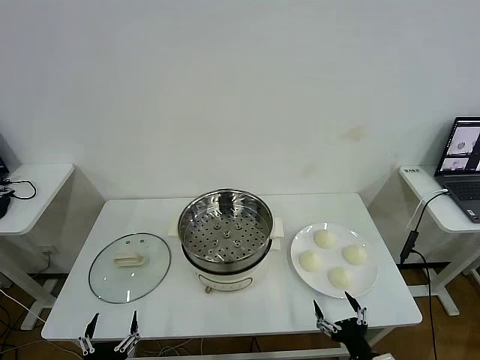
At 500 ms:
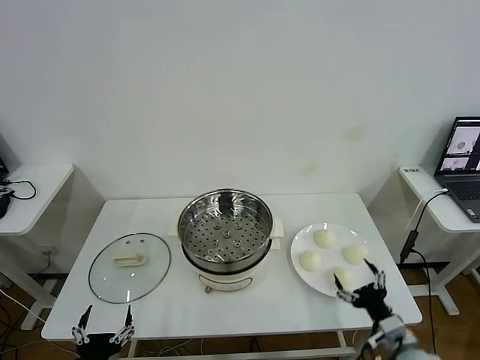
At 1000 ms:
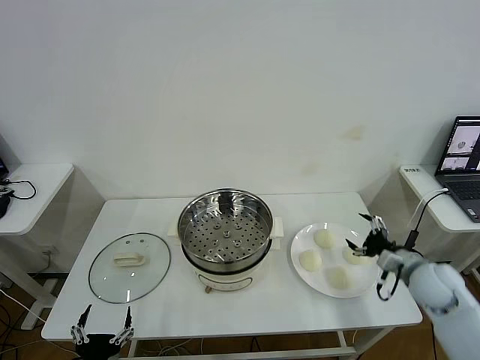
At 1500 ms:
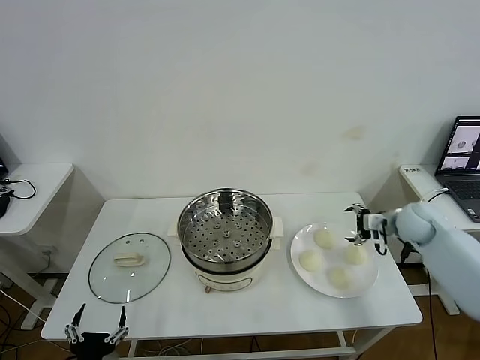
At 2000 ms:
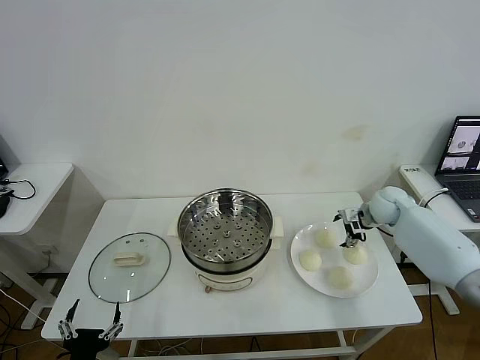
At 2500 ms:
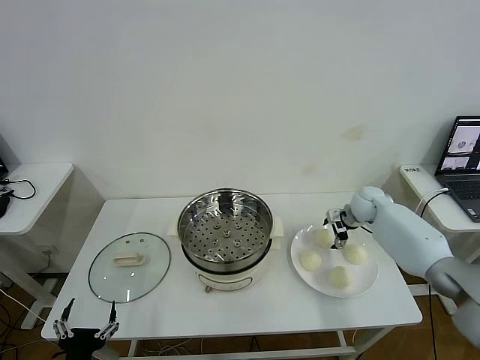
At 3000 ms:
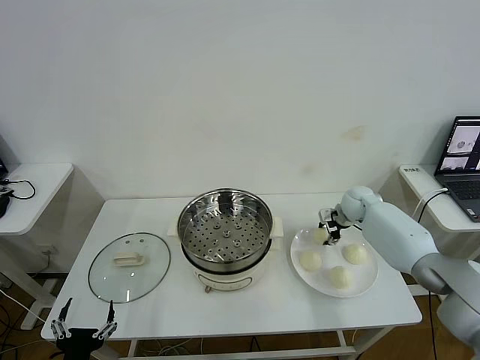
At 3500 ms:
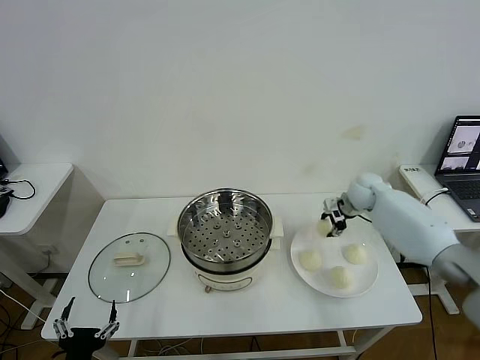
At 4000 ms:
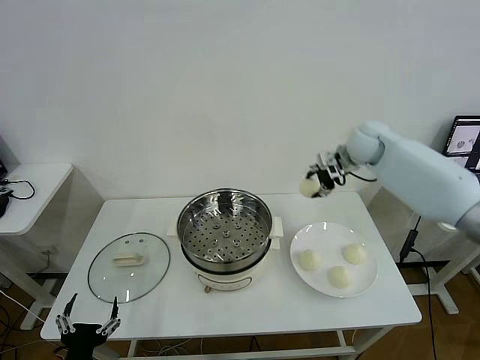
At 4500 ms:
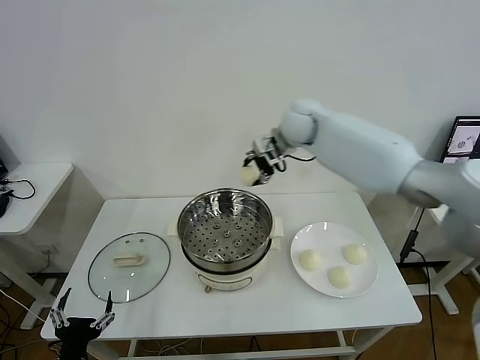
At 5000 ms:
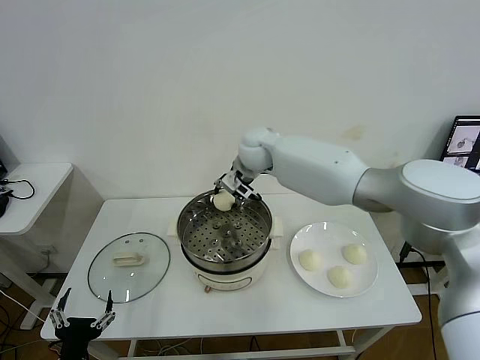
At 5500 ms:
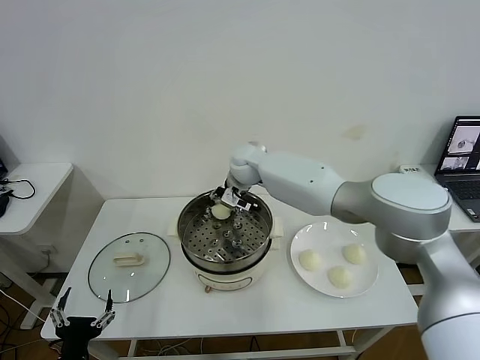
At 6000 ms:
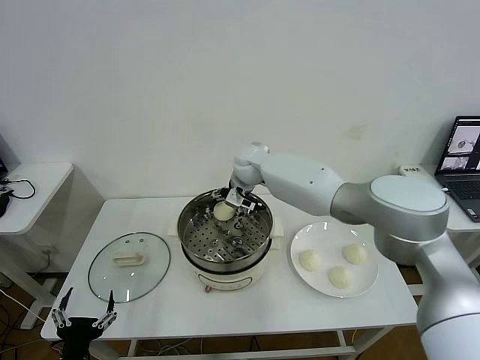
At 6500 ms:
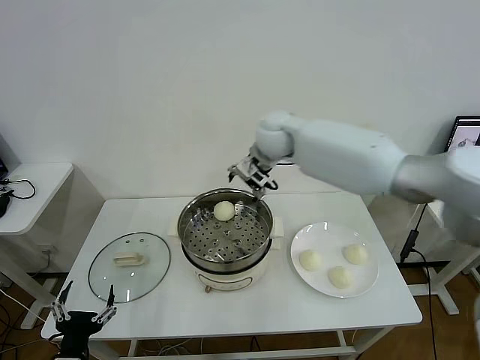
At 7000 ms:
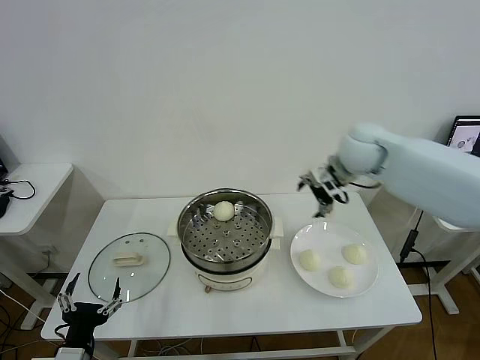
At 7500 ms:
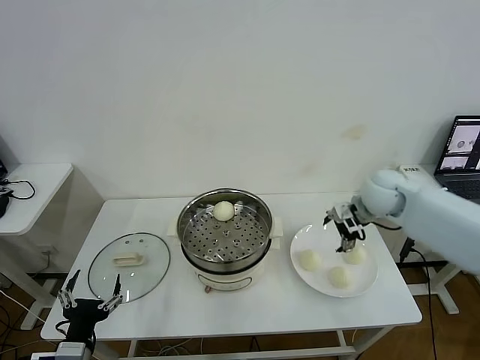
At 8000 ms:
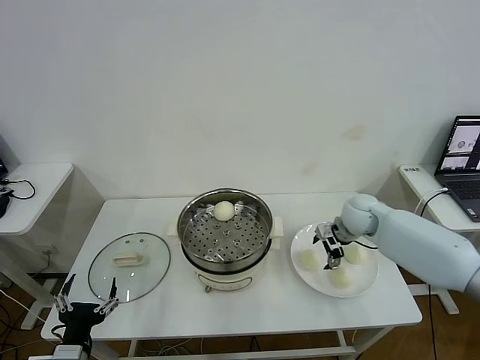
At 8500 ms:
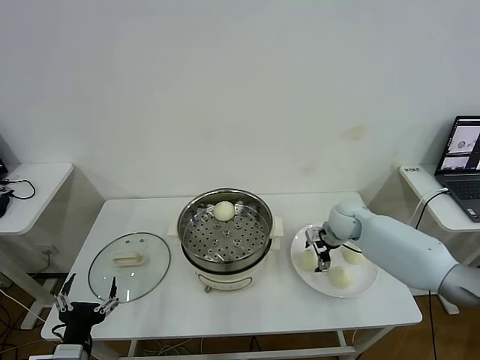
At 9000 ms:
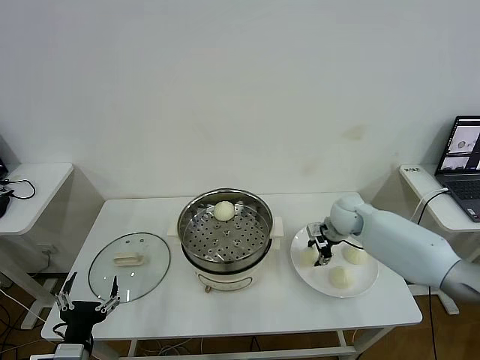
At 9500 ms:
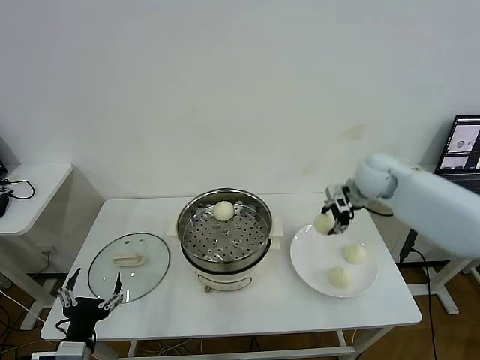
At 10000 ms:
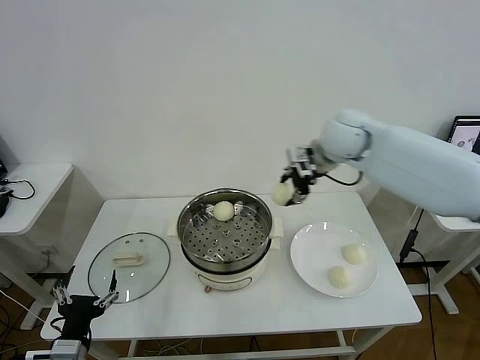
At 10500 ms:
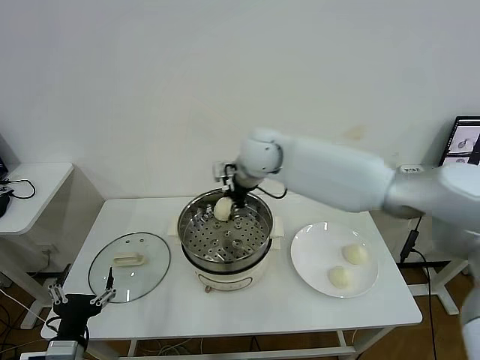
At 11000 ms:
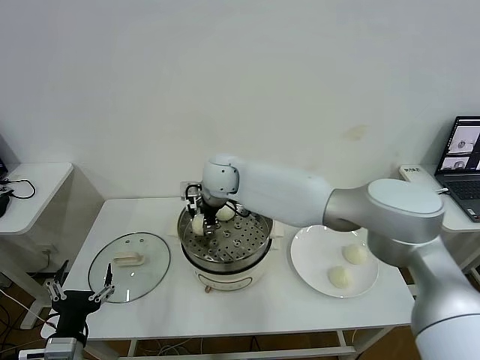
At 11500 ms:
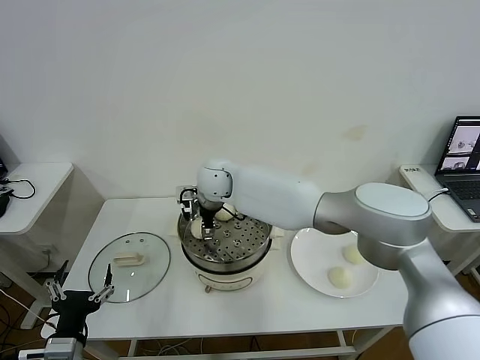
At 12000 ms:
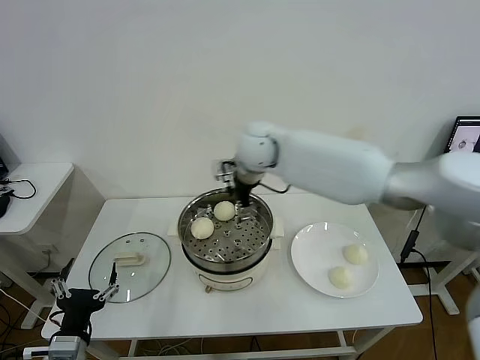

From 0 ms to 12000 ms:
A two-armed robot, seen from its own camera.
Task of the whole recording: take steamed baozi put them in steamer then cover it.
Step, from 0 ms to 3000 ms: Grasp the baozi in the plate with right gripper.
Step, from 3500 ms to 6000 ms: Place the baozi on the steamer with right gripper.
Step, from 6500 ms to 8500 ms: Grasp the baozi in the plate with right gripper.
Step, from 9000 ms to 11500 ms: Place the baozi on the steamer with right gripper.
From 2000 ms to 4000 ms: The right gripper heads upward and to the left, covering about 20 cm, and closes its fingers.
From 4000 ms to 6000 ms: The right gripper moves to the left, approximately 25 cm, and opens.
From 6000 ms to 8000 ms: The right gripper is displaced to the right by roughly 25 cm.
From 8000 ms to 10000 ms: The right gripper shifts roughly 20 cm upward and to the left, and closes its fingers.
From 10000 ms to 12000 ms: The right gripper moves to the left, approximately 20 cm, and opens its fingers.

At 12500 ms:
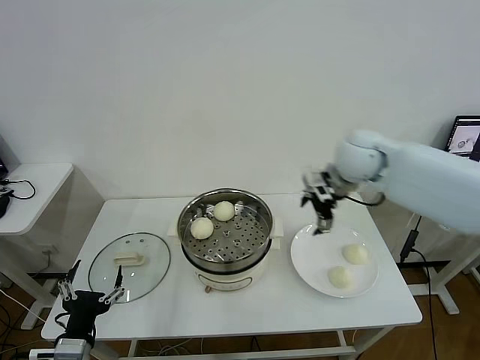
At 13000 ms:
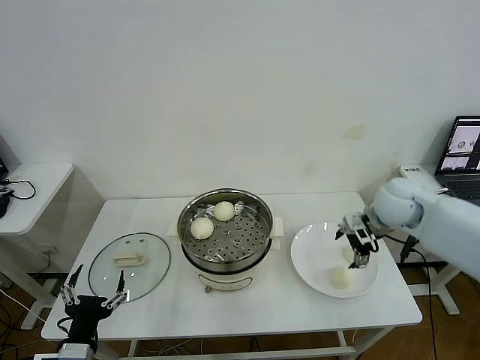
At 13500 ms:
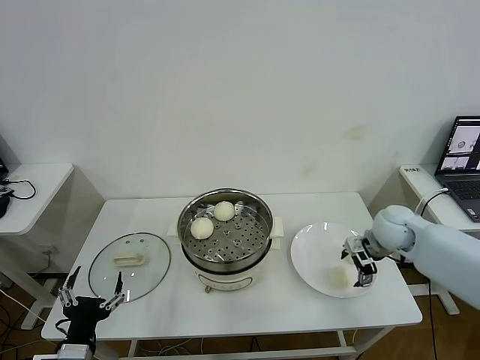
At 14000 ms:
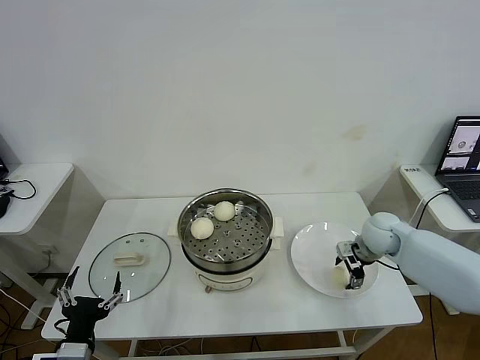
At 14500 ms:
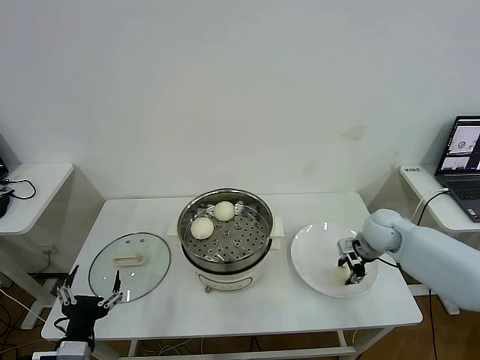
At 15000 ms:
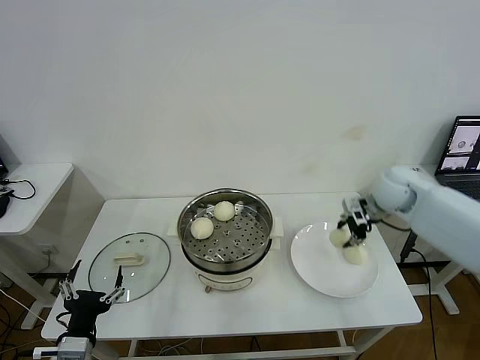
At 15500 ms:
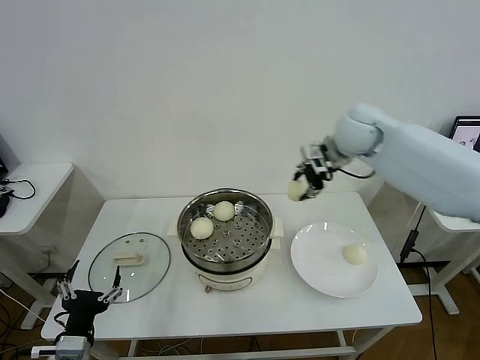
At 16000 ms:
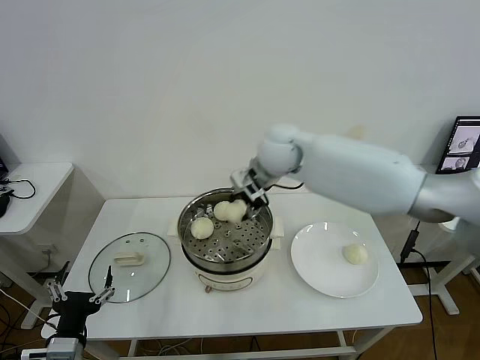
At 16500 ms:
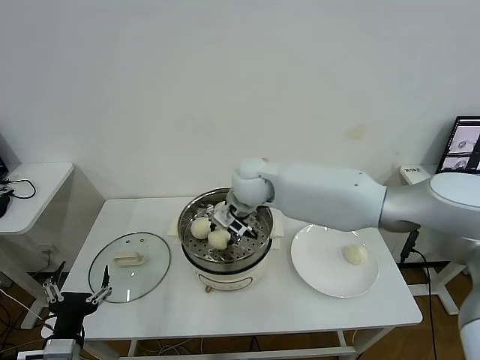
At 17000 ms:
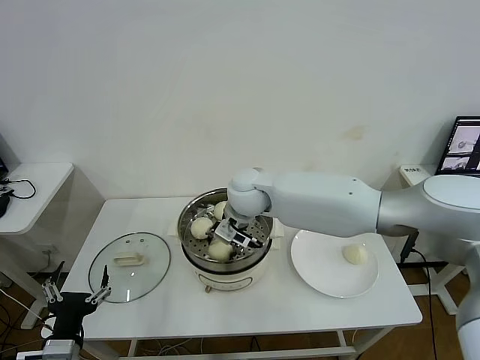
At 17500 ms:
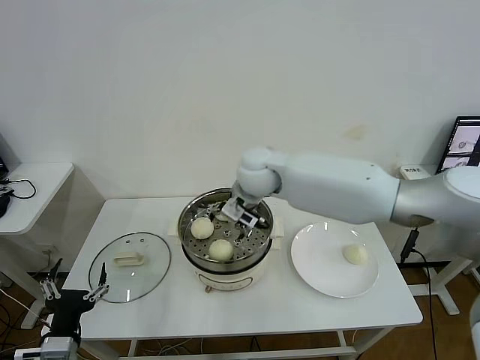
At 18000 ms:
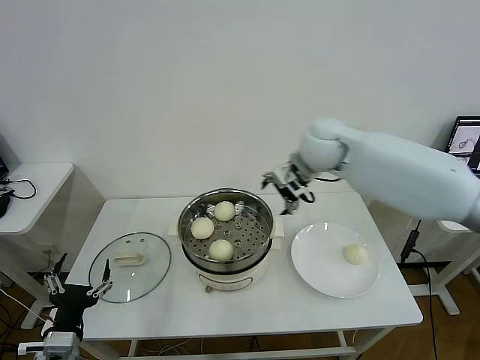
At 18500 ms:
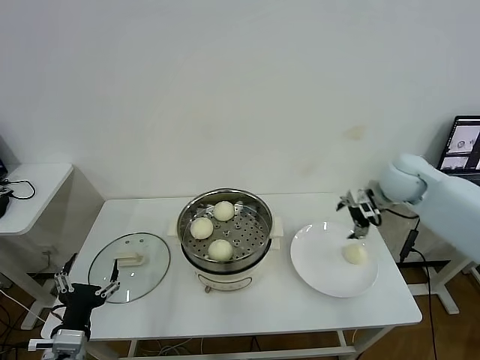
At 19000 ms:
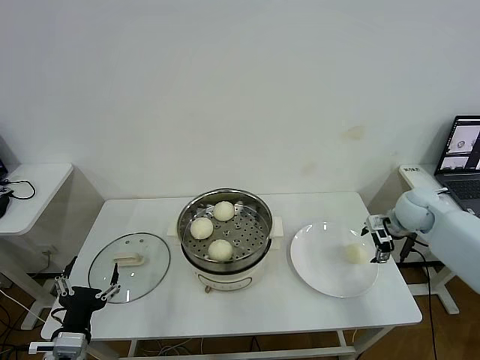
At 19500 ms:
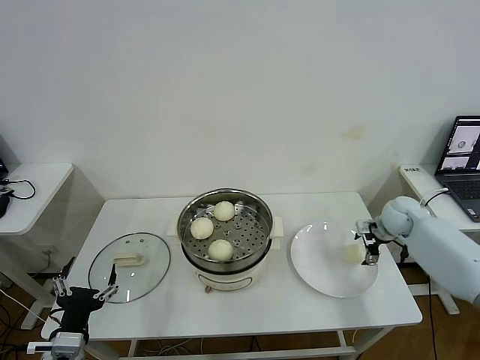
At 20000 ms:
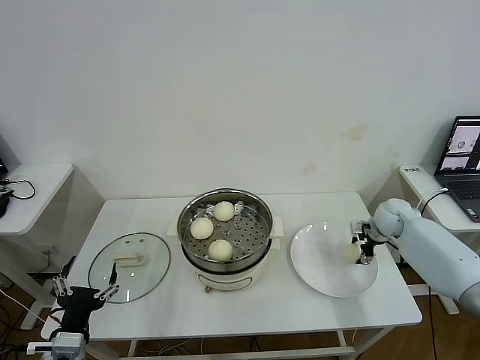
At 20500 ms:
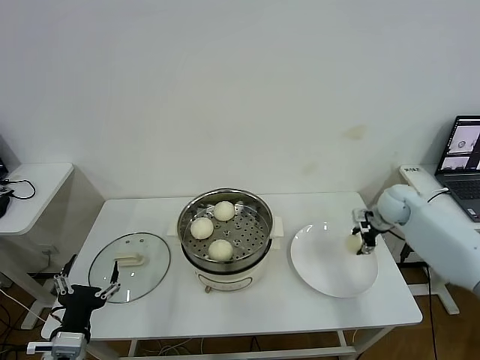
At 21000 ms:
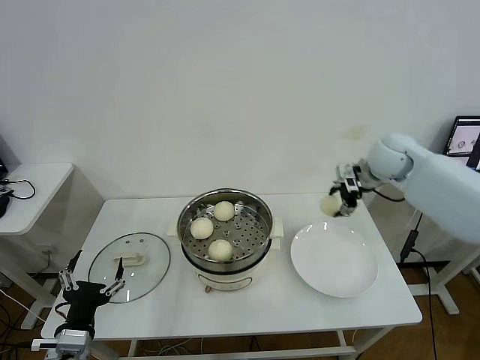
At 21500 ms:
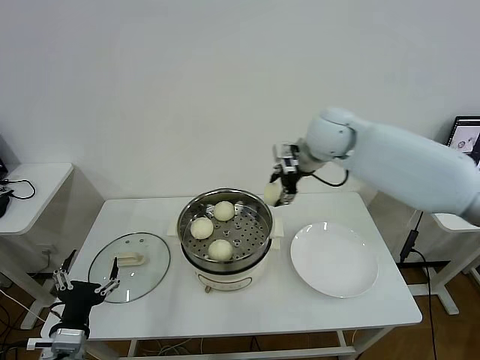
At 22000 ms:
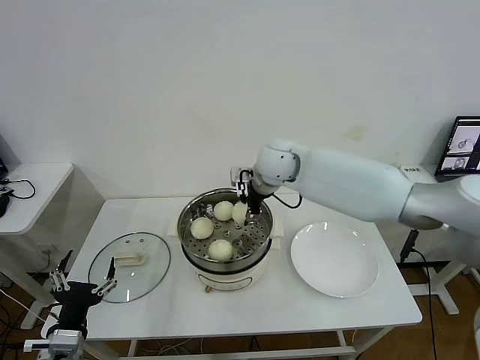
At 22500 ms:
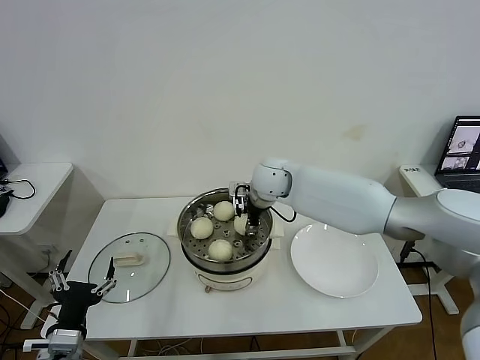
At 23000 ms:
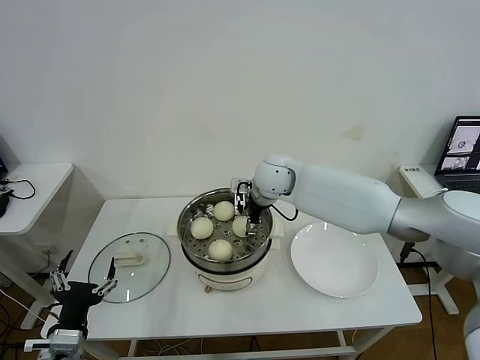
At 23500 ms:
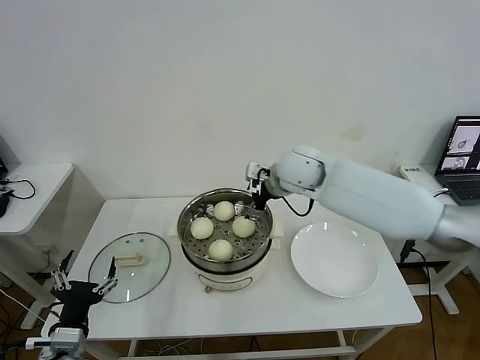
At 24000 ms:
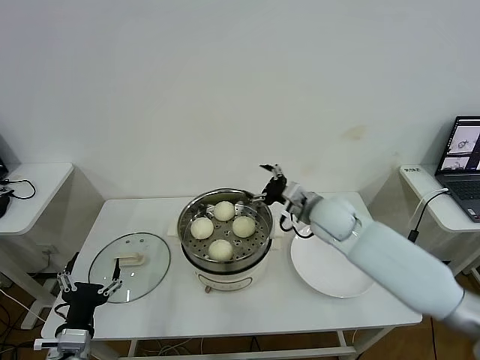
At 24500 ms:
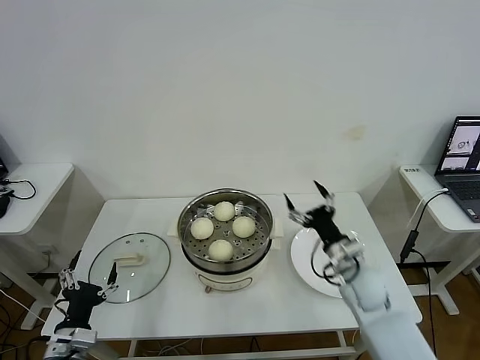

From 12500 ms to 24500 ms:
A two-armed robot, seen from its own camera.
Task of the whole recording: take steamed baozi put them in steamer then cover it.
Step, from 12500 ms to 14000 ms: Grasp the baozi in the plate with right gripper.
Step, from 14500 ms to 17000 ms: Place the baozi on the steamer with right gripper.
Step, from 17500 ms to 20000 ms: Grasp the baozi in the plate with right gripper.
Step, from 20500 ms to 23000 ms: Place the baozi on the steamer with right gripper.
From 12500 ms to 14500 ms: The right gripper shifts about 25 cm downward and to the right, and closes its fingers.
From 14500 ms to 16500 ms: The right gripper is displaced to the left and upward by about 35 cm.
From 16500 ms to 18500 ms: The right gripper shifts about 30 cm to the right, and opens.
From 18500 ms to 20500 ms: The right gripper is displaced downward and to the right by roughly 15 cm, and closes up.
From 20500 ms to 22500 ms: The right gripper is displaced to the left by about 35 cm.
From 22500 ms to 24500 ms: The right gripper moves to the right, backward and downward, about 30 cm, and opens.

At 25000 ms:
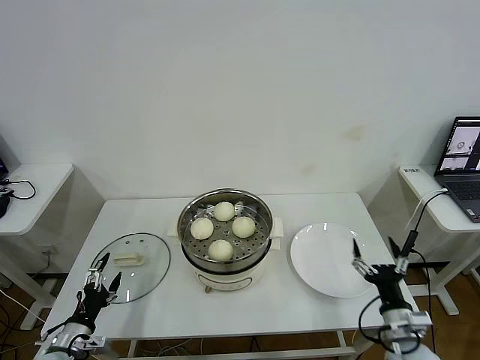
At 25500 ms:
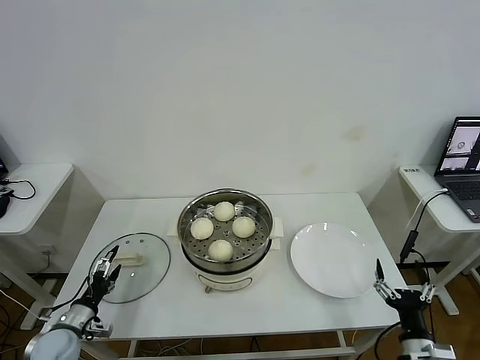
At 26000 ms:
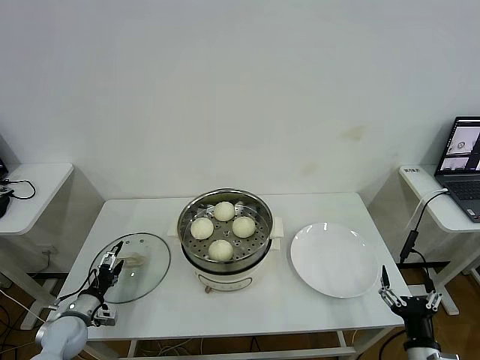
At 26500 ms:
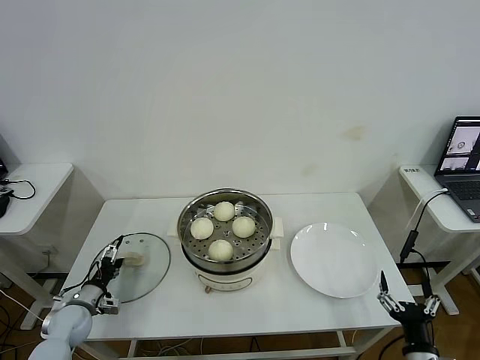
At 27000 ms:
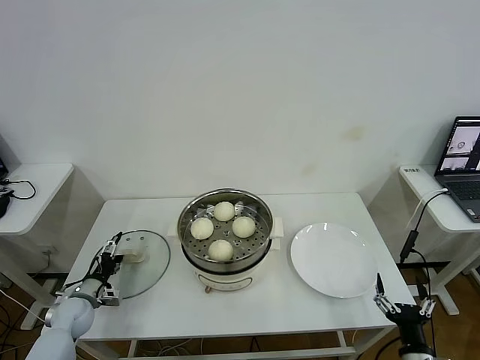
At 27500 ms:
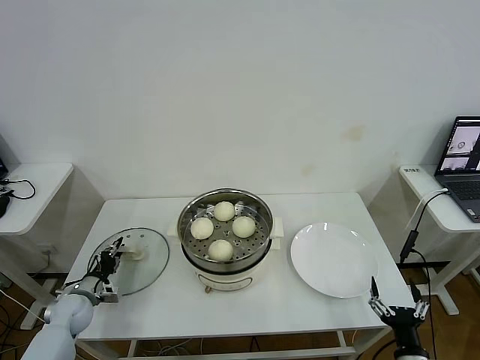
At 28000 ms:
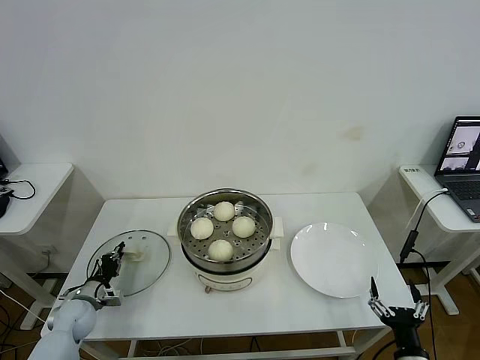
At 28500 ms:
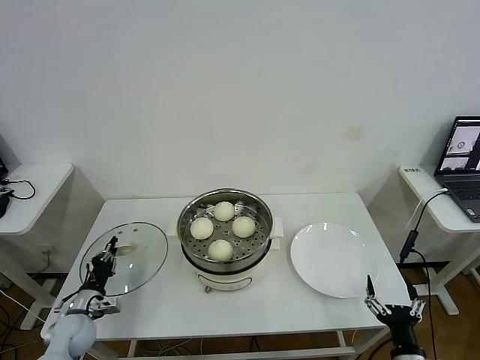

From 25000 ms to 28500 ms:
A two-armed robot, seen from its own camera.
Task of the whole recording: take steamed baozi put them in steamer then cover it.
Step, from 25000 ms to 27500 ms: Grasp the pot lid with left gripper.
From 25000 ms to 27000 ms: The right gripper heads backward, covering about 10 cm. Meanwhile the left gripper heads forward, covering some 15 cm.
From 27000 ms to 28500 ms: The left gripper closes its fingers.
